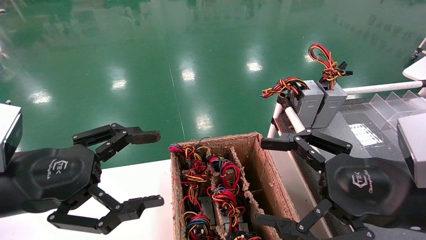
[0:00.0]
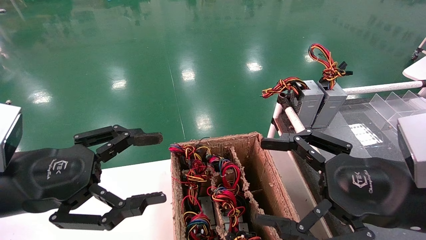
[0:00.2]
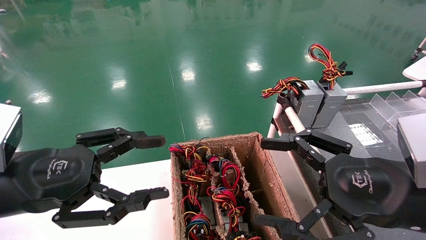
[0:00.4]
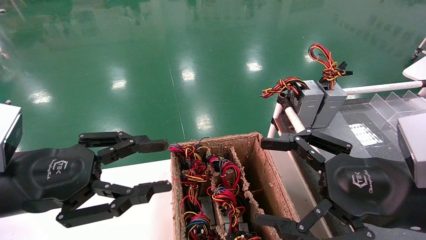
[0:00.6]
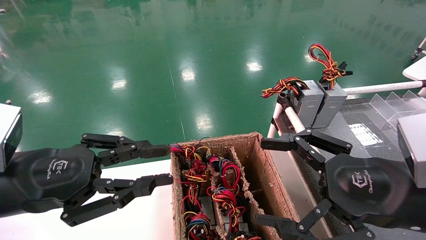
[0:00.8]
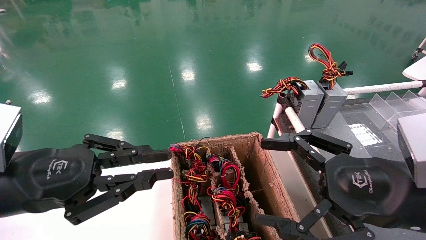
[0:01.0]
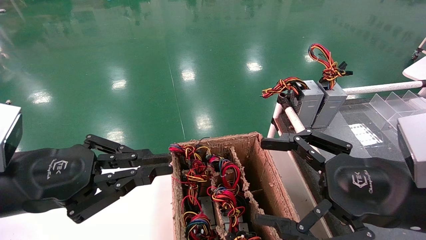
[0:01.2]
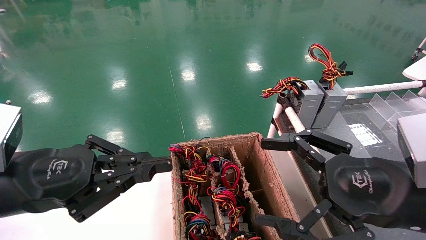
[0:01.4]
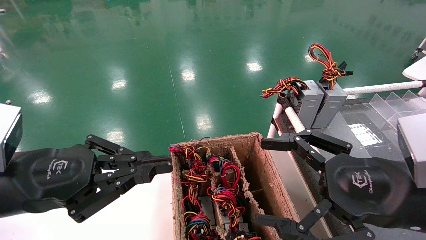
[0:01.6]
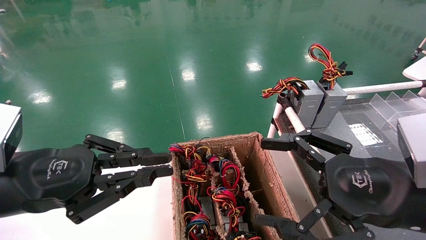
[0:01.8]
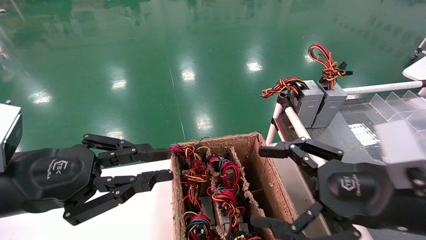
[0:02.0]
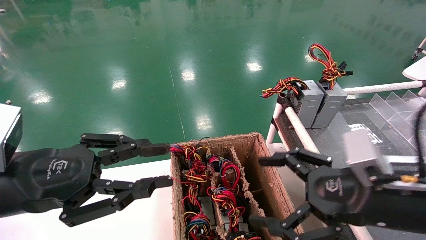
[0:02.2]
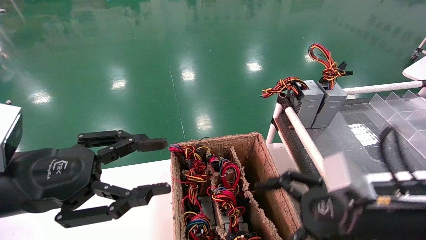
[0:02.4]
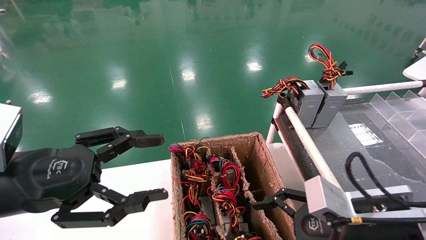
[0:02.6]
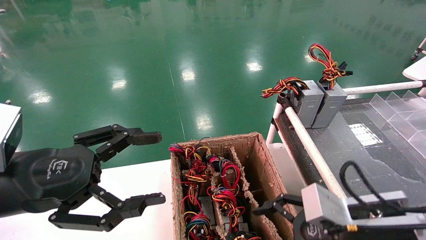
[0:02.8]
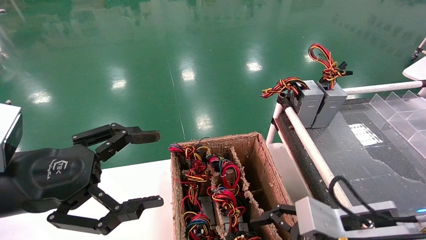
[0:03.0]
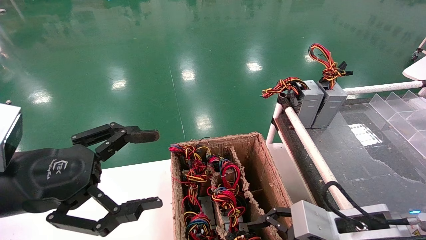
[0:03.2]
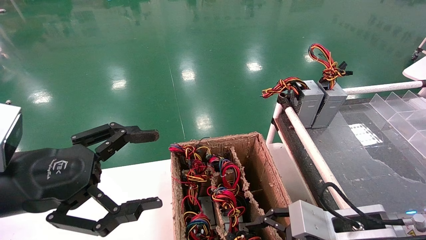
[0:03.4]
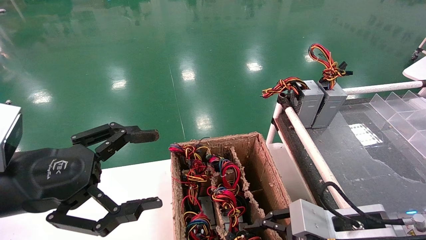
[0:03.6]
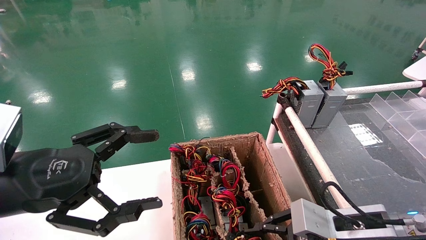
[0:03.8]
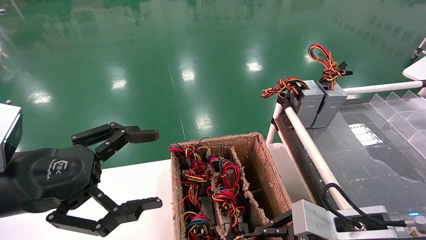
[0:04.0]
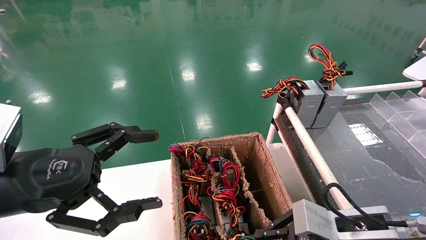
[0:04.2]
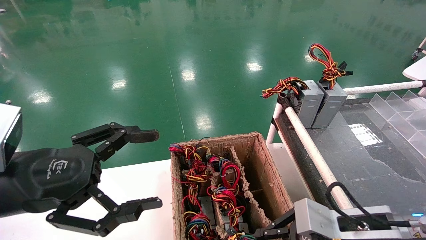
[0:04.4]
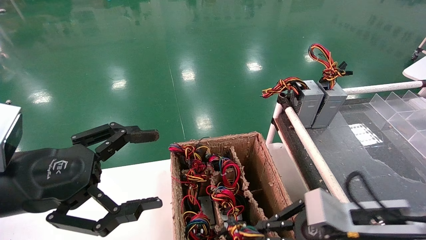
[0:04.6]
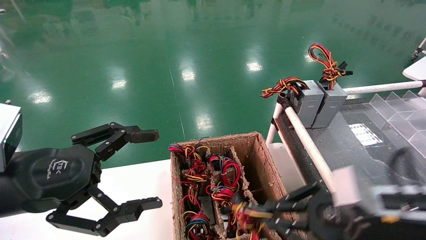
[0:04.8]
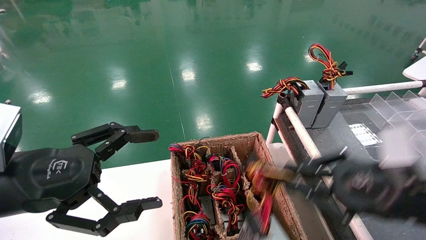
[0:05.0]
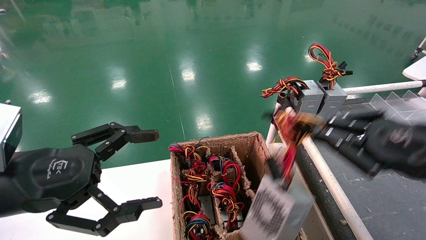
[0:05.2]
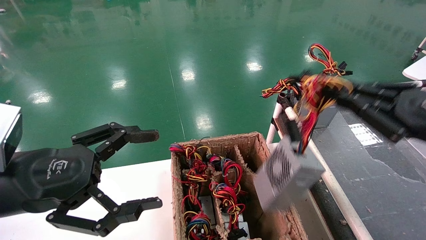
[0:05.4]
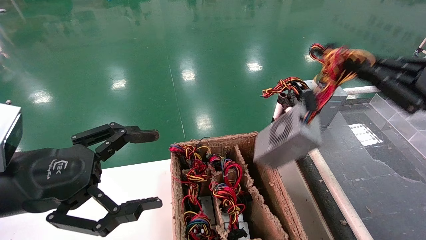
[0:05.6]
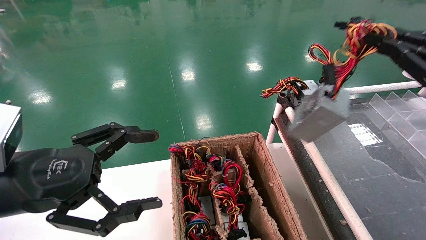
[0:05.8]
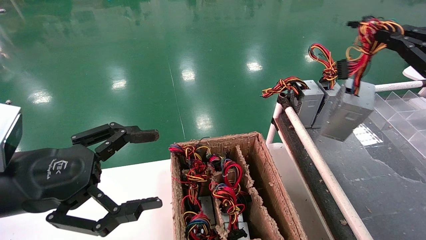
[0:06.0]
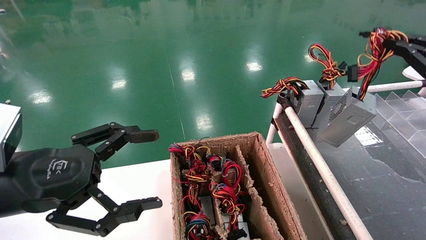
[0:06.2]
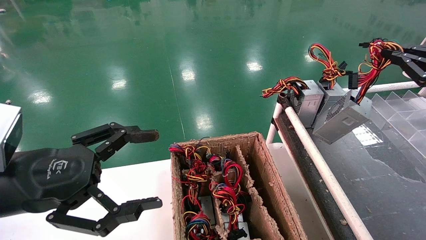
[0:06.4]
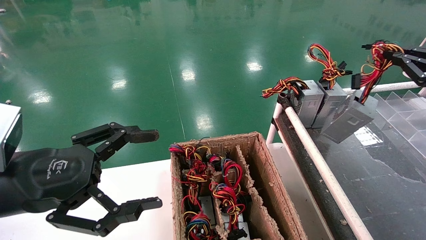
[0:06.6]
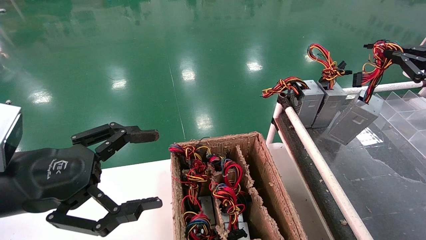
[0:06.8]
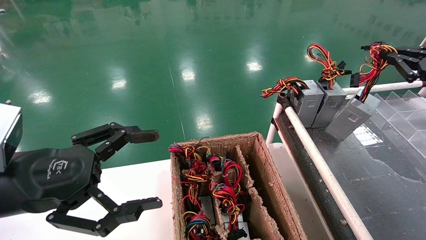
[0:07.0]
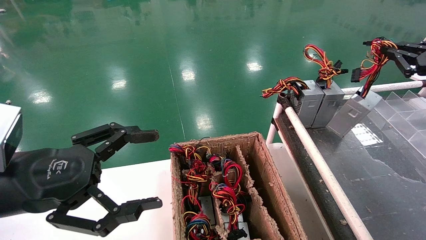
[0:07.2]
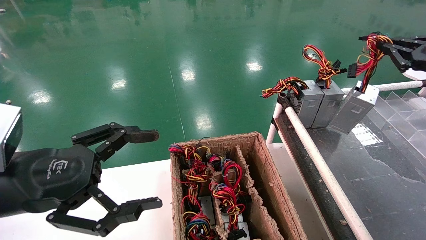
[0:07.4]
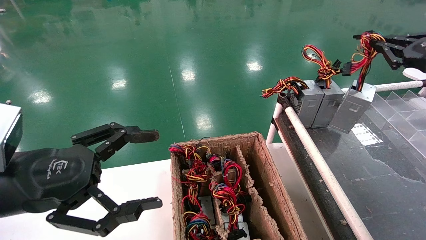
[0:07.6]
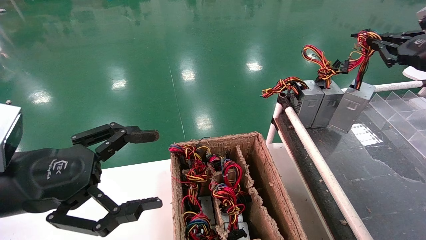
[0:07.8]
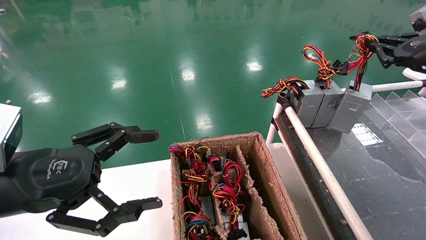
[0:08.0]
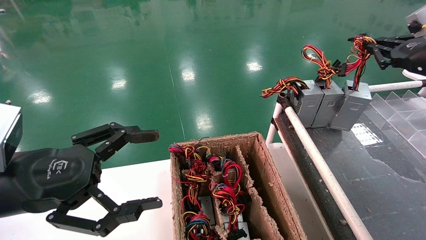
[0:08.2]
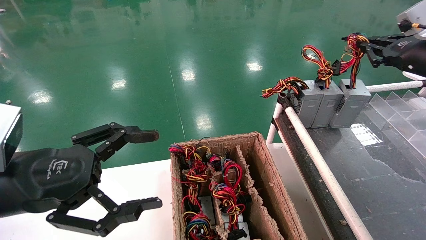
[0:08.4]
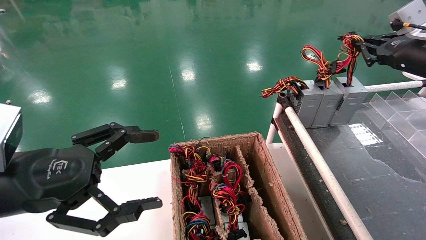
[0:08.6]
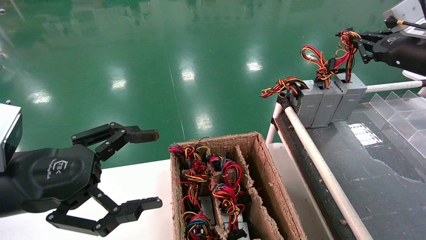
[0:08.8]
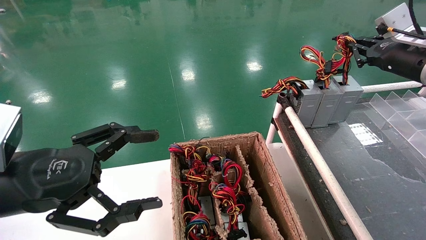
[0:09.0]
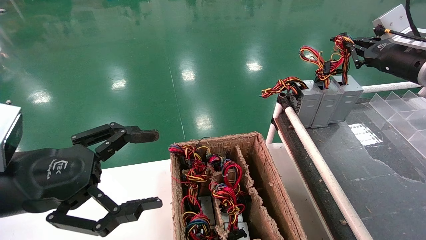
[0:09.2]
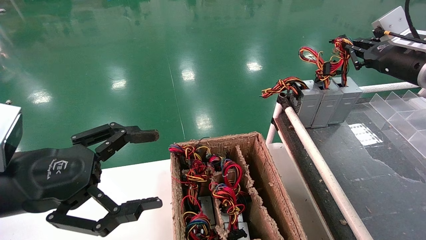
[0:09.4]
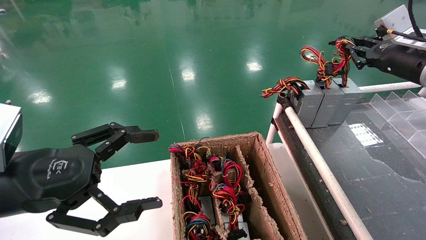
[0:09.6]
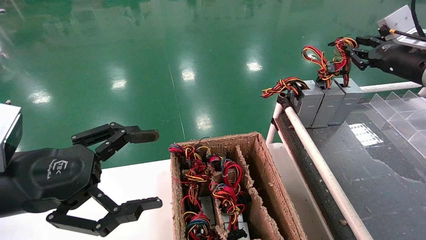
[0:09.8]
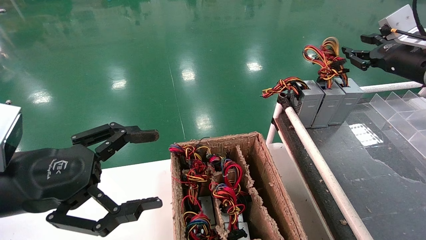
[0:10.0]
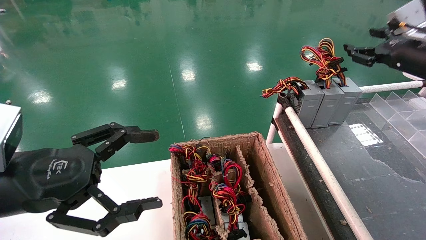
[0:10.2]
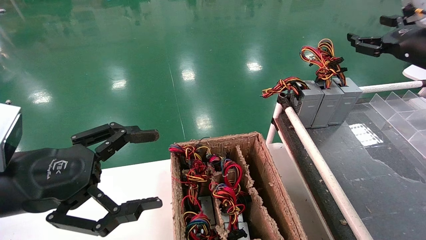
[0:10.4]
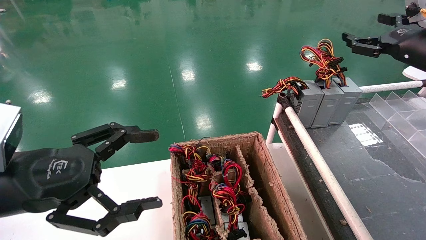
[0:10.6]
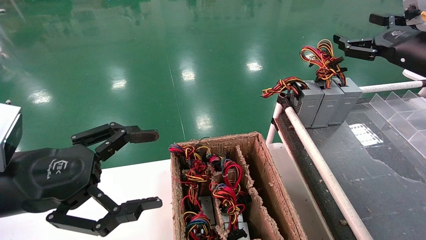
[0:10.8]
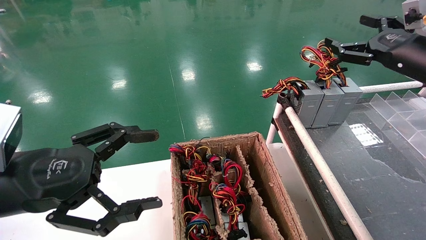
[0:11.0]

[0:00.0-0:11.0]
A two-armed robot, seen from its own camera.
Step, 0:01.4 to 0:04.2: Grab and lift the power supply from the large box.
Step, 0:04.4 to 0:09.4: Place the power supply on the operating table.
0:00.0 to 0:01.6: The left gripper closes up.
0:01.6 to 0:03.2: The right gripper heads downward, covering some 10 cm, while the left gripper opens up.
0:03.2 to 0:04.8: The right gripper ends up approximately 5 cm from where it was, and closes.
0:04.8 to 0:06.2: The right gripper goes approximately 25 cm to the right and upward.
0:06.2 to 0:07.8: The right gripper shifts about 10 cm forward.
0:07.8 to 0:09.4: The right gripper shifts by about 5 cm.
0:09.4 to 0:11.0: The right gripper heads backward, covering some 5 cm, and opens.

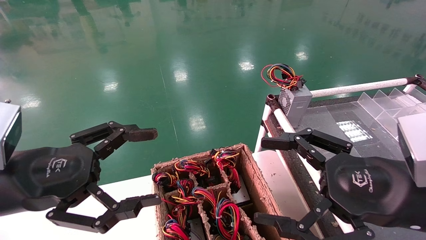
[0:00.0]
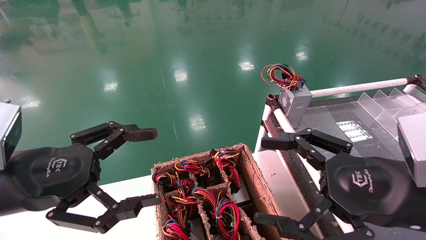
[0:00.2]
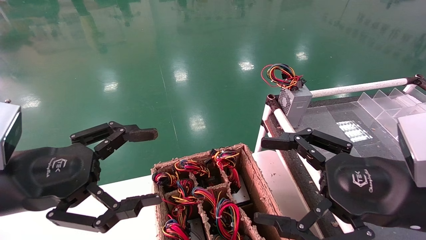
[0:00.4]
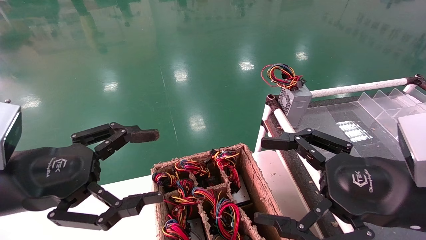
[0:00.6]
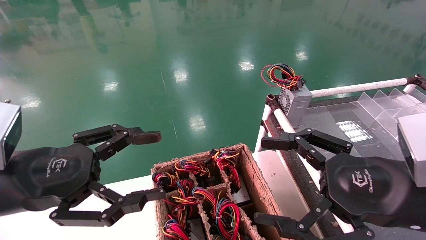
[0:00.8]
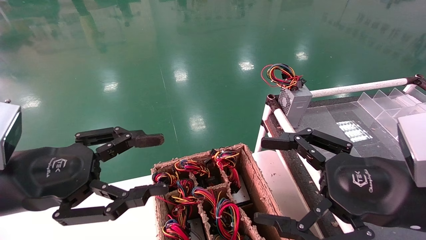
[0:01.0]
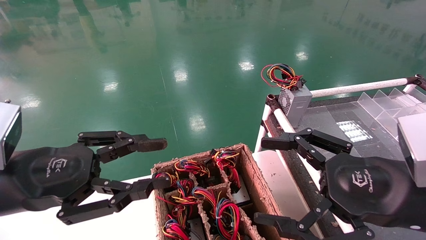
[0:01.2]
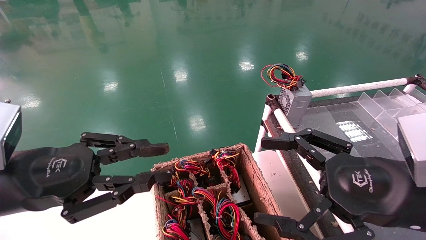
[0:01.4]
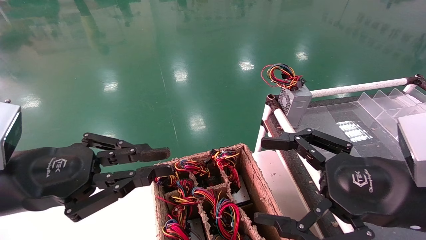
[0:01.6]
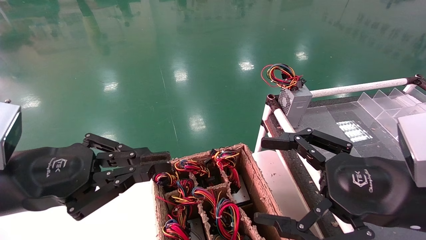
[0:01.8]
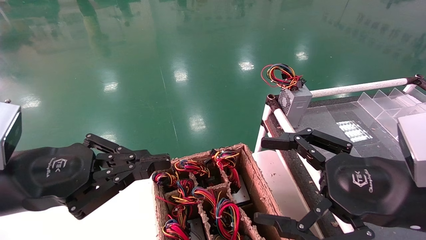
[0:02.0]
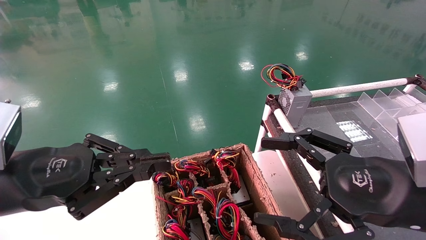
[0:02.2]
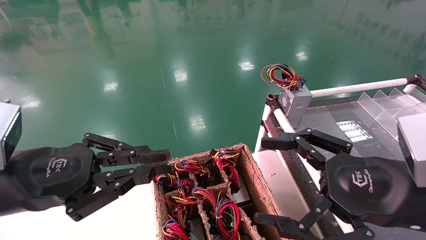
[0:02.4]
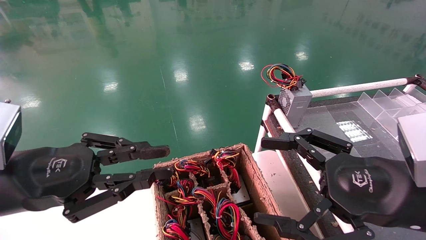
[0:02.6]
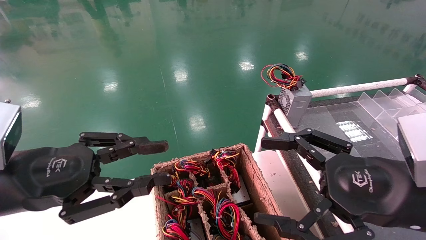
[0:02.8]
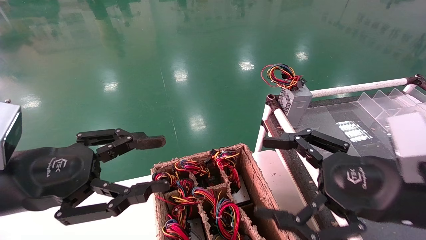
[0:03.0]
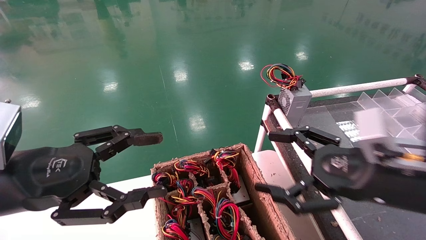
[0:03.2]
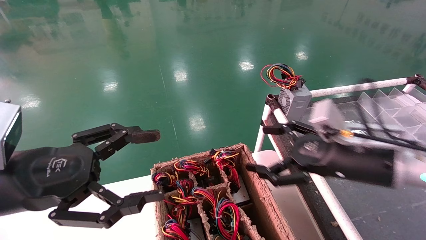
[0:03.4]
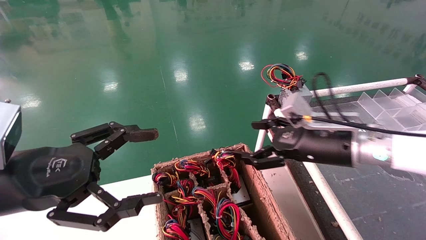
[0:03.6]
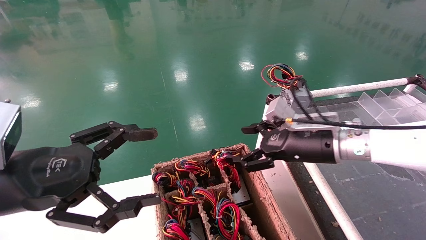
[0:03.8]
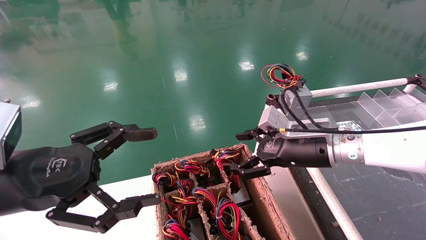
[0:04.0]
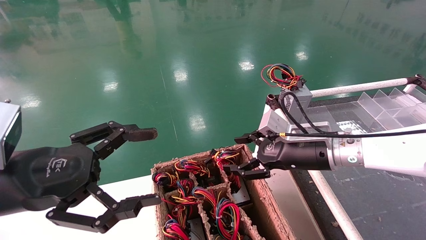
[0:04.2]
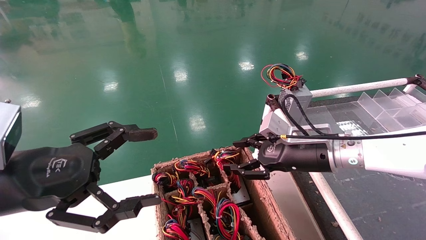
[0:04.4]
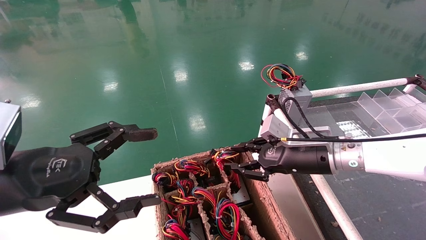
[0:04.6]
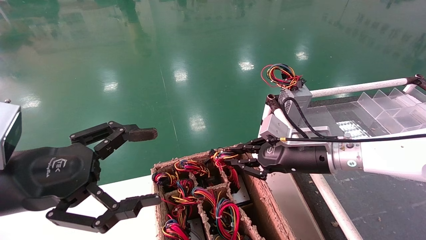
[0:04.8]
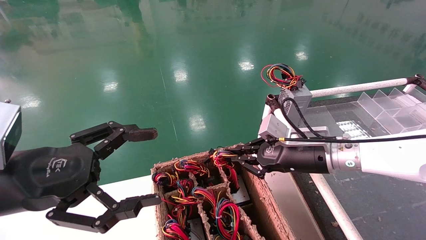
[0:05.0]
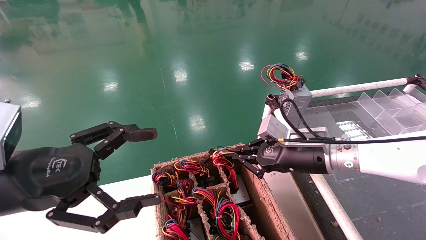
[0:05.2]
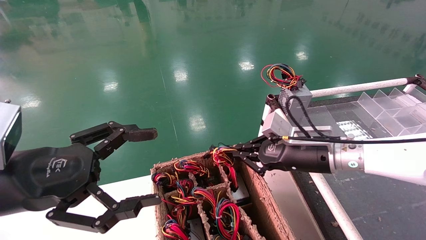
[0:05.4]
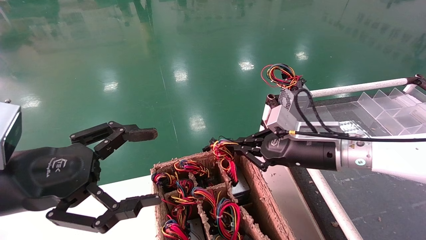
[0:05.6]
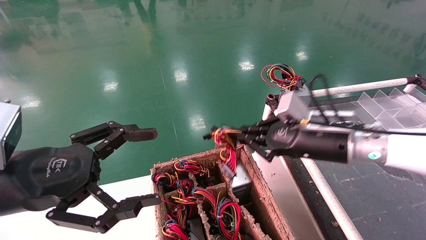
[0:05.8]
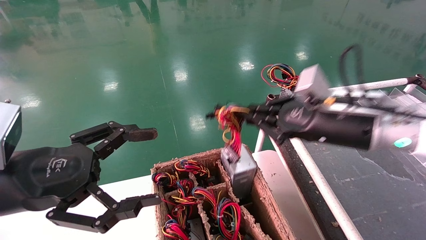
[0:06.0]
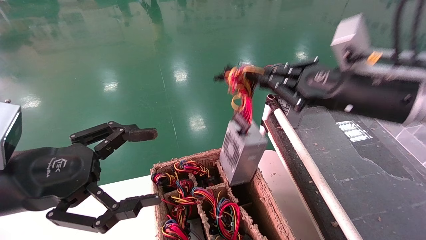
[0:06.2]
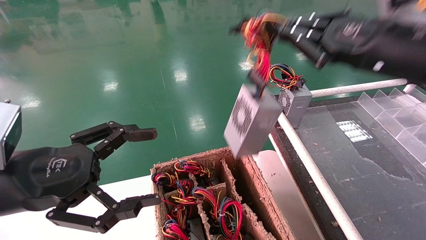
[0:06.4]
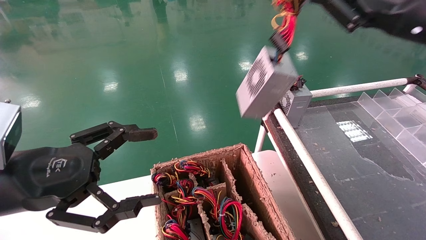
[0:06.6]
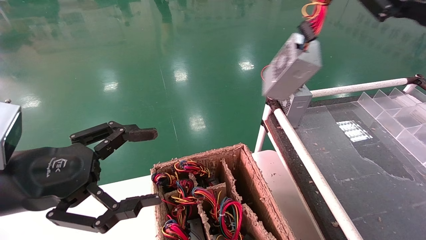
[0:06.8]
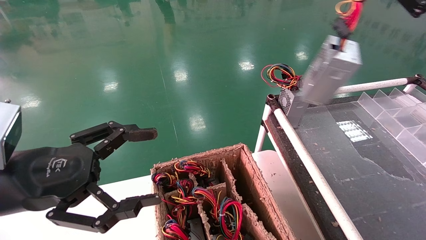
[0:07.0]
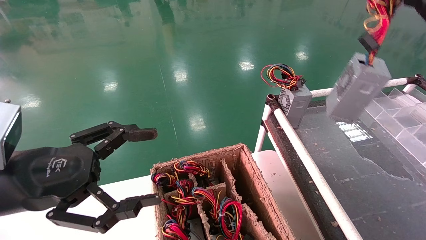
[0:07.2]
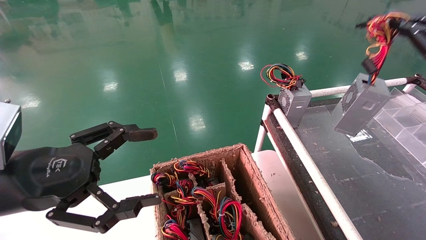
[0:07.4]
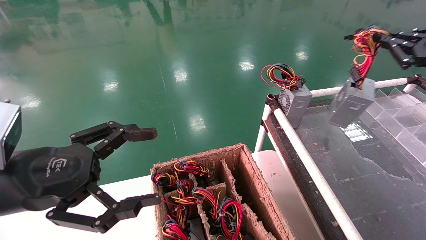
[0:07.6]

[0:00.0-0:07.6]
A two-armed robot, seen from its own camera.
Step, 0:00.8 to 0:04.6: Grab and lift the power supply from the large box.
0:00.0 to 0:01.6: The left gripper closes its fingers.
0:01.6 to 0:03.0: The grippers stay close to where they were, moving slightly.
0:03.0 to 0:04.6: The left gripper opens up; the right gripper travels forward by about 15 cm, and closes its fingers.
0:04.6 to 0:06.0: The right gripper is displaced upward by about 10 cm, and closes up.
0:06.0 to 0:07.6: The right gripper is displaced to the right and upward by approximately 20 cm.
